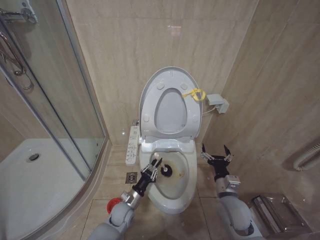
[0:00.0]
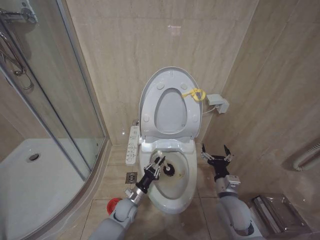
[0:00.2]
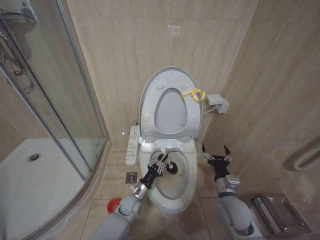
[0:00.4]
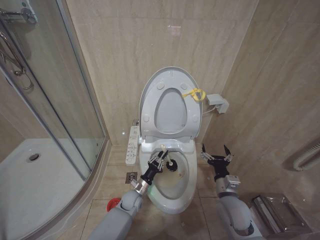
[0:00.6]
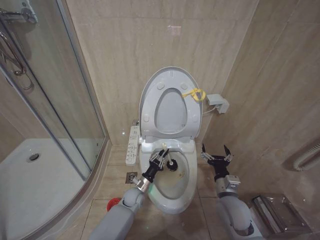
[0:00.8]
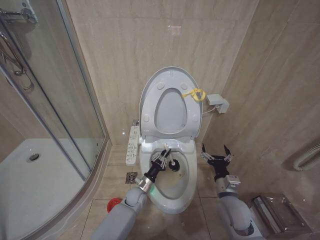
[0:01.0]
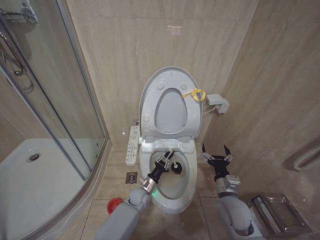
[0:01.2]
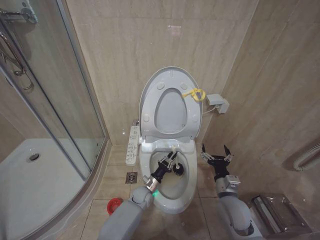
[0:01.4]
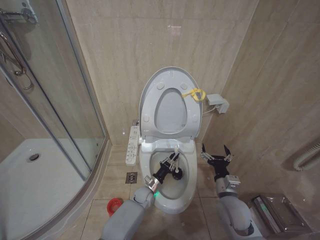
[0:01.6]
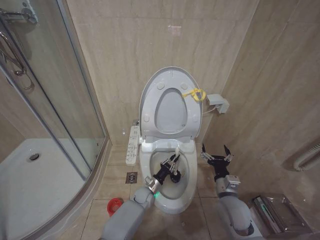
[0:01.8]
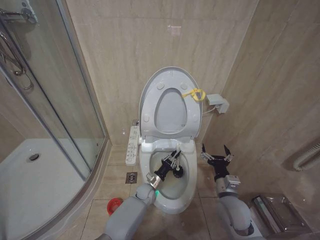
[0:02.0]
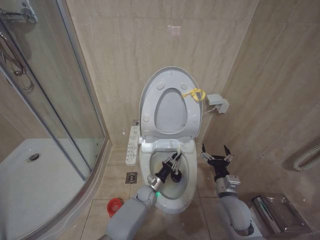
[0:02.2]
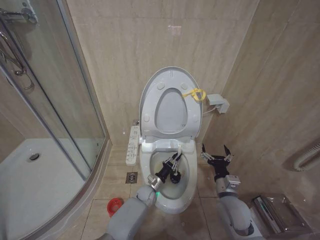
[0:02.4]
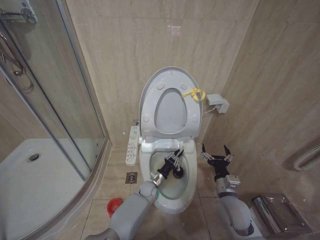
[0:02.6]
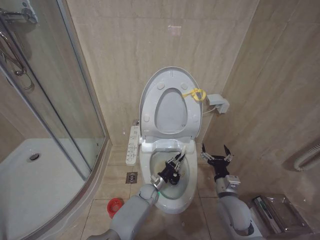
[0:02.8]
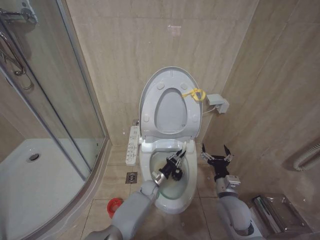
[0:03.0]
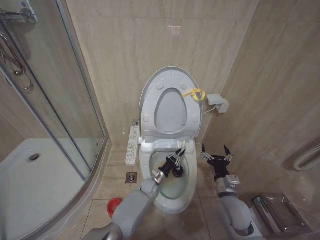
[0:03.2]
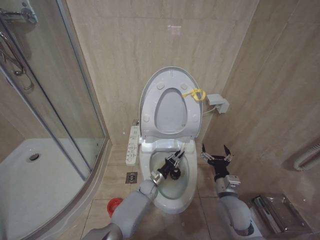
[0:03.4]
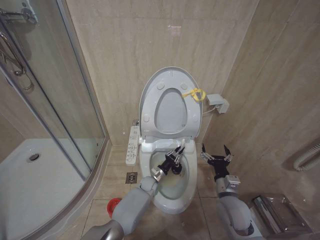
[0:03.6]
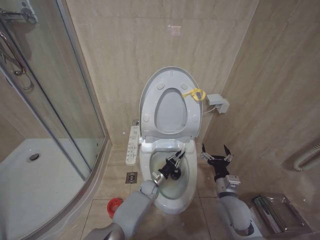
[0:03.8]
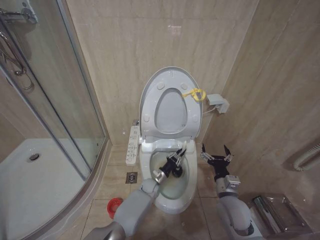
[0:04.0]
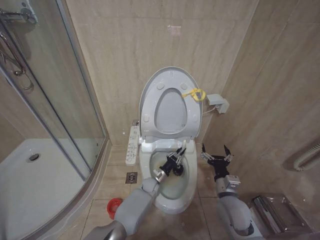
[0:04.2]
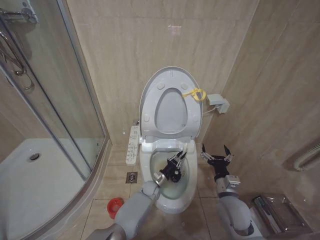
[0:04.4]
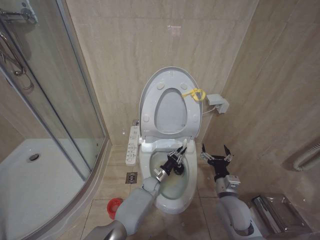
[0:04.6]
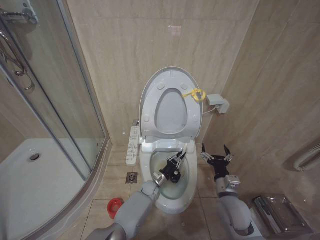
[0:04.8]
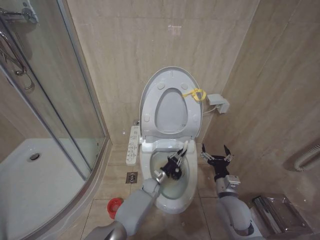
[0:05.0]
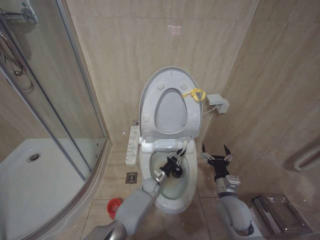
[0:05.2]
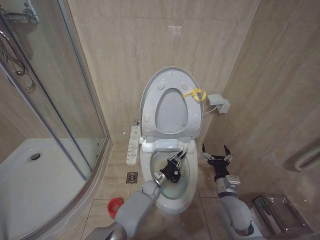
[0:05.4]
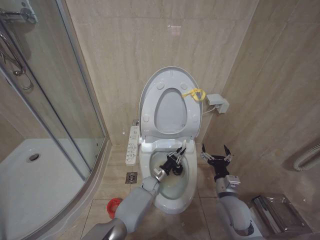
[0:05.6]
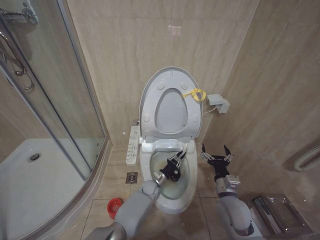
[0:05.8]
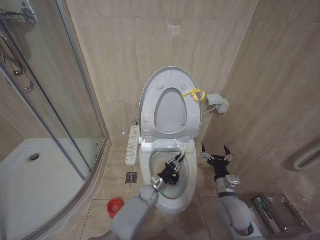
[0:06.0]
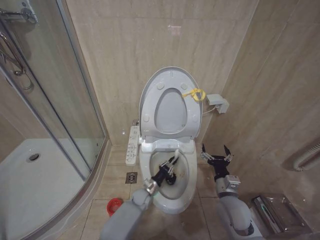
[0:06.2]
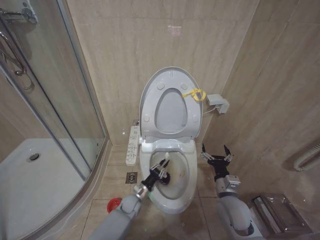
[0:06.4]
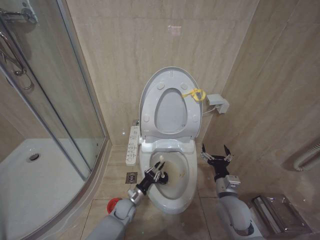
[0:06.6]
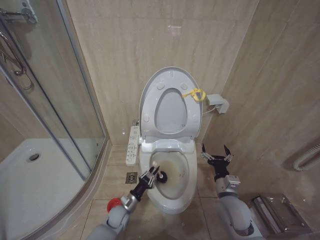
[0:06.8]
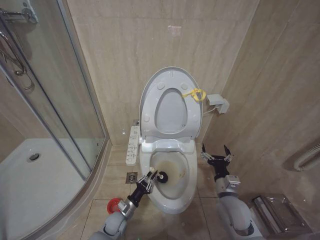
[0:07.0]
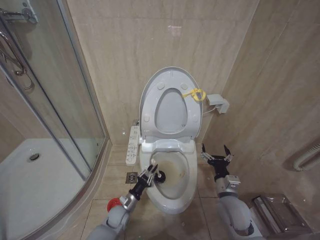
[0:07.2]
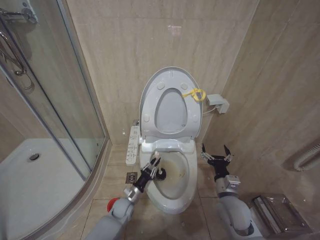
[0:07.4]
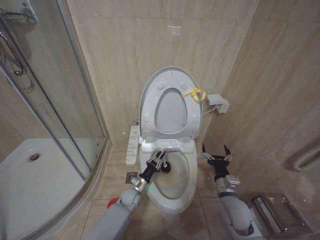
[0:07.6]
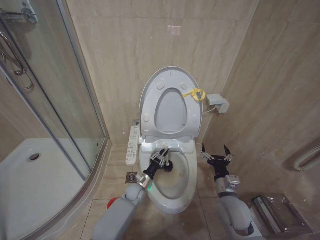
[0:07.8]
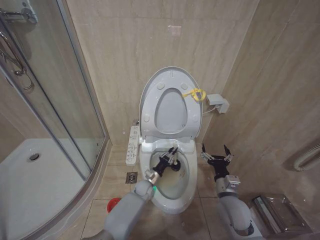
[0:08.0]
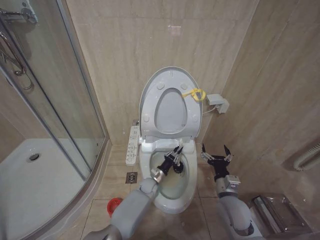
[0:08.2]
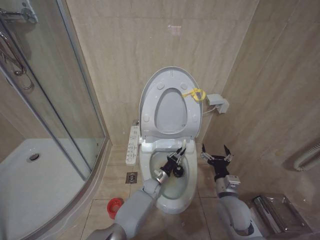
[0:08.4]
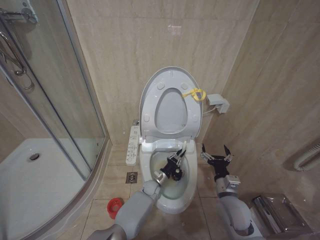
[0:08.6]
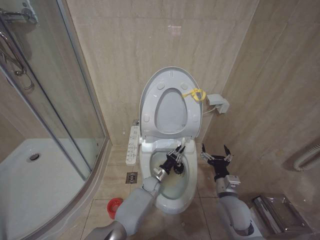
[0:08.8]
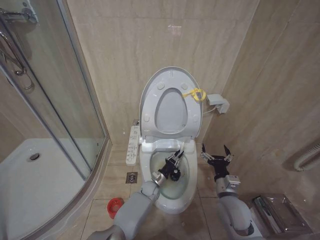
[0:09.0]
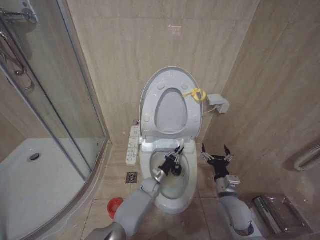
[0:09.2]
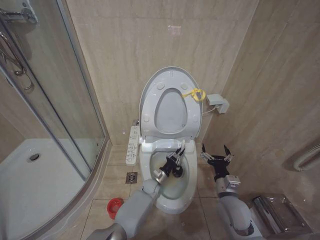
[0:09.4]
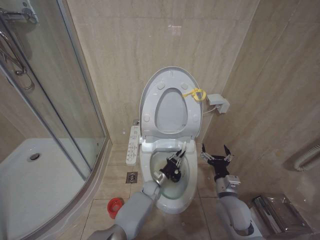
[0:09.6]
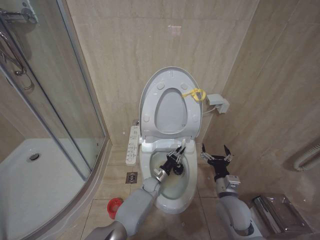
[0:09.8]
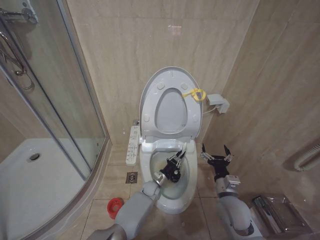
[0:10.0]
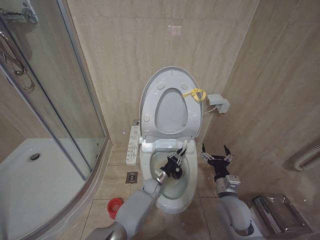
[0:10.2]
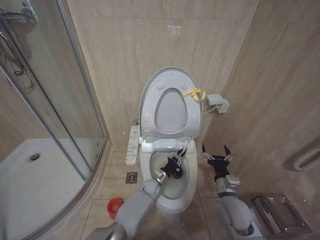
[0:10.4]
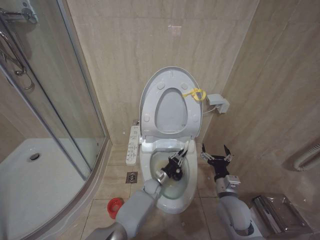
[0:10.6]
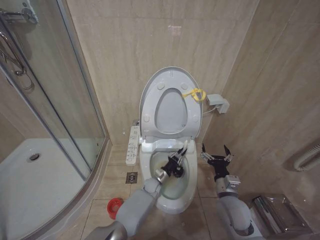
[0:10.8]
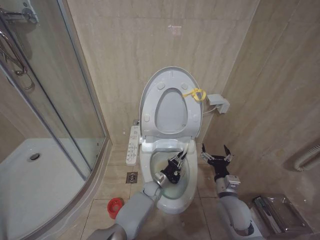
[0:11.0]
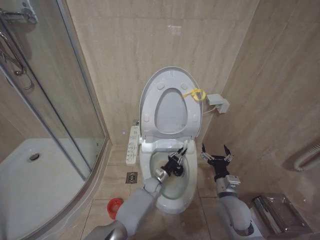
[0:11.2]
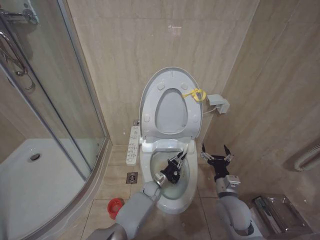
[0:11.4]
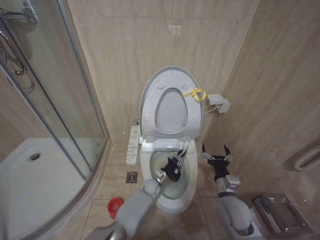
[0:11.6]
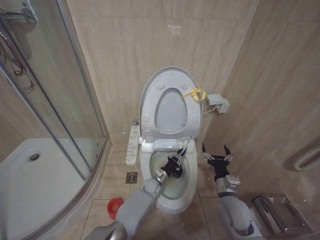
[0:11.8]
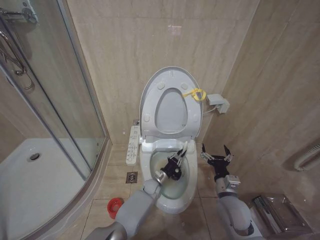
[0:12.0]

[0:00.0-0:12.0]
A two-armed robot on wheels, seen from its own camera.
Task of the whole recording: Open the toilet lid, clean the toilet bowl with a toilet brush, close the toilet lid, and flush.
0:00.0 to 0:01.6: The left gripper is displaced to the right and forward by about 15 cm.
0:01.6 to 0:03.0: The grippers stay close to where they were, moving slightly.
0:04.4 to 0:06.0: The grippers stay close to where they were, moving slightly.
0:06.0 to 0:07.6: The left gripper shifts approximately 15 cm to the left and backward.
0:07.6 to 0:09.0: The left gripper is displaced to the right and forward by approximately 15 cm.
0:09.0 to 0:10.4: Both grippers stay about where they are.

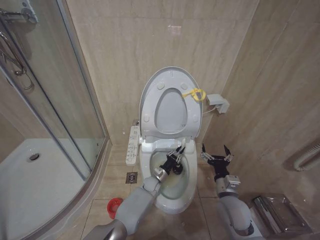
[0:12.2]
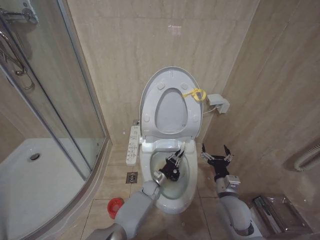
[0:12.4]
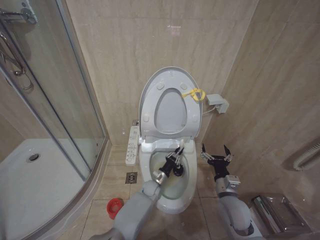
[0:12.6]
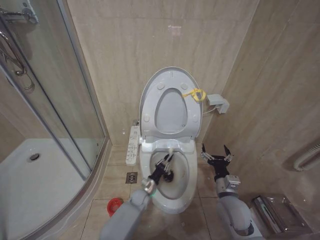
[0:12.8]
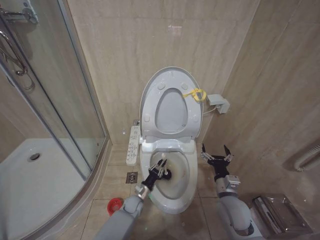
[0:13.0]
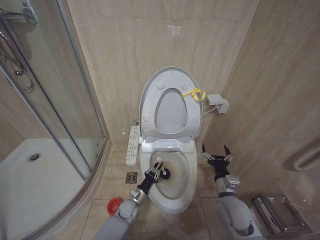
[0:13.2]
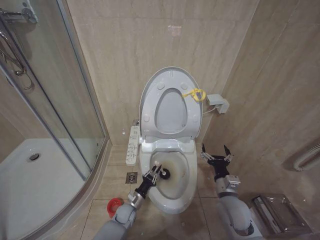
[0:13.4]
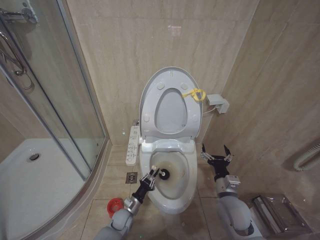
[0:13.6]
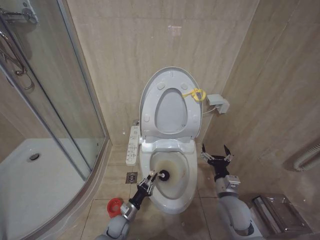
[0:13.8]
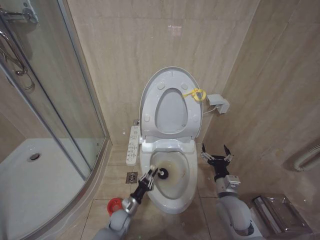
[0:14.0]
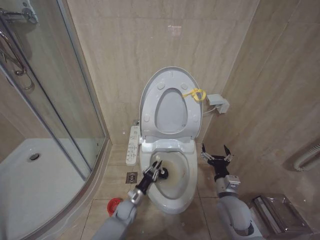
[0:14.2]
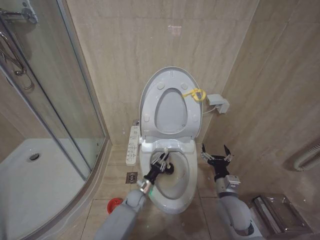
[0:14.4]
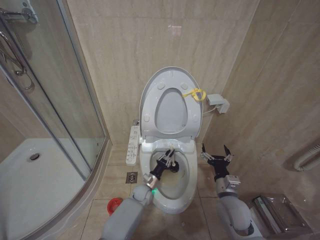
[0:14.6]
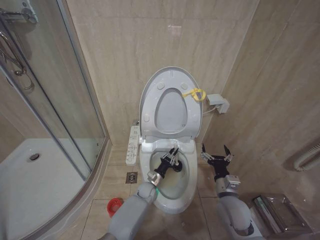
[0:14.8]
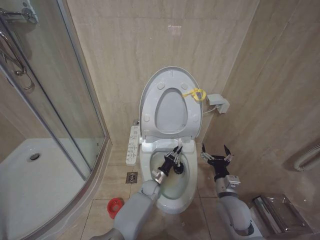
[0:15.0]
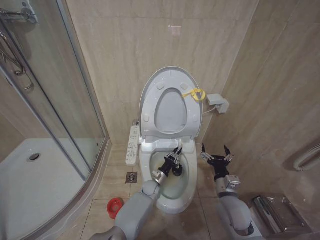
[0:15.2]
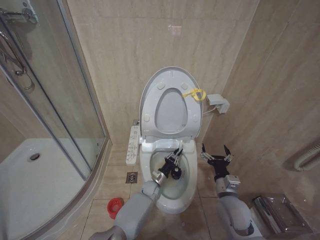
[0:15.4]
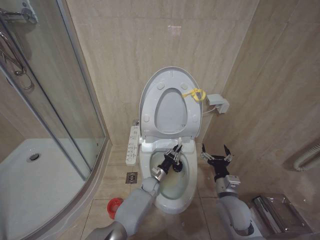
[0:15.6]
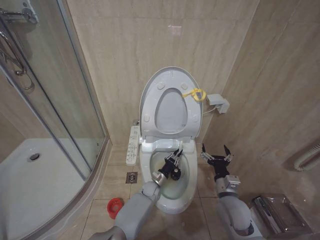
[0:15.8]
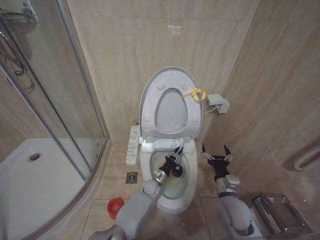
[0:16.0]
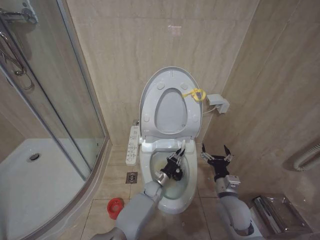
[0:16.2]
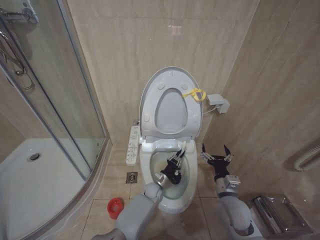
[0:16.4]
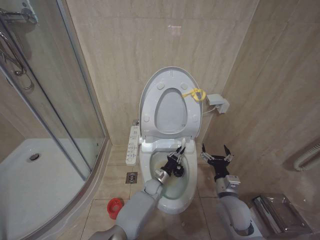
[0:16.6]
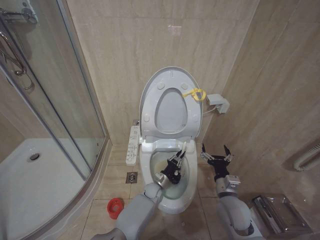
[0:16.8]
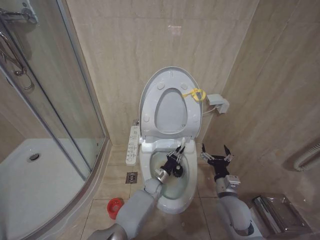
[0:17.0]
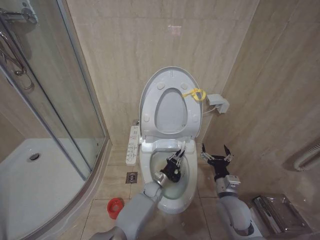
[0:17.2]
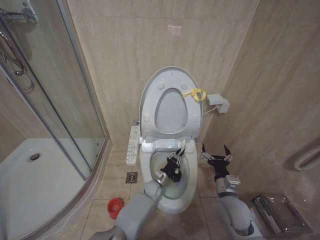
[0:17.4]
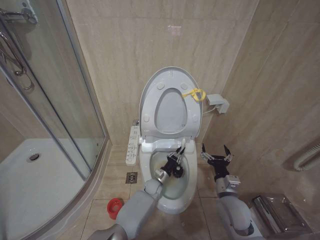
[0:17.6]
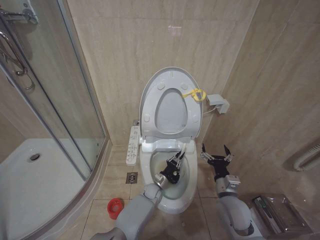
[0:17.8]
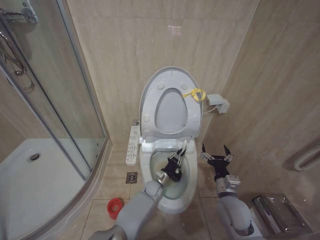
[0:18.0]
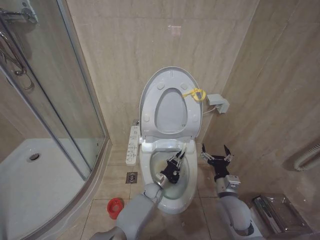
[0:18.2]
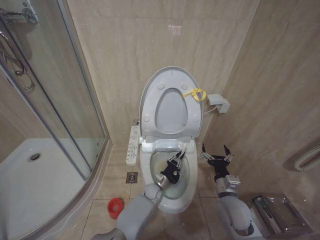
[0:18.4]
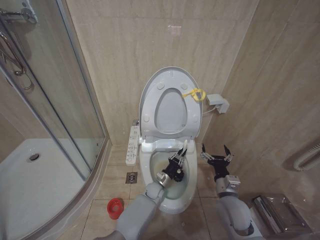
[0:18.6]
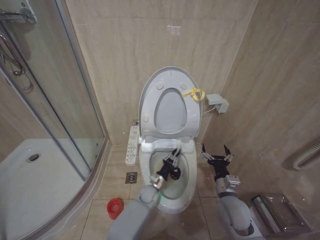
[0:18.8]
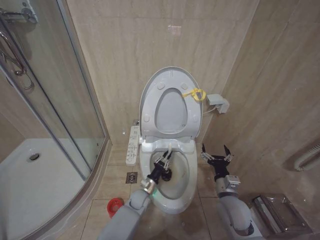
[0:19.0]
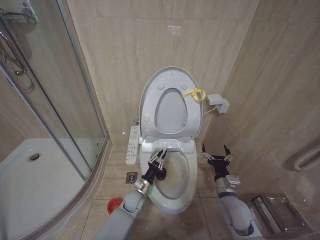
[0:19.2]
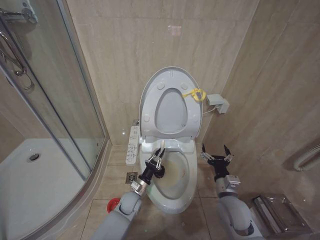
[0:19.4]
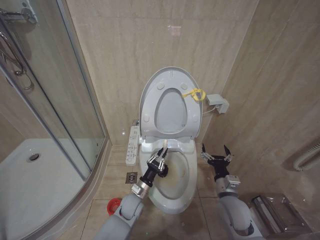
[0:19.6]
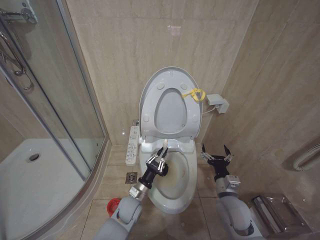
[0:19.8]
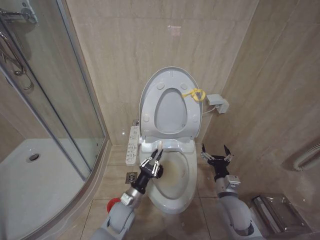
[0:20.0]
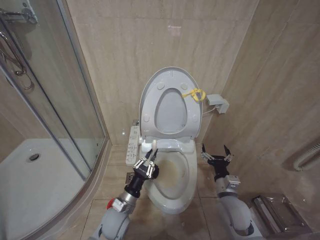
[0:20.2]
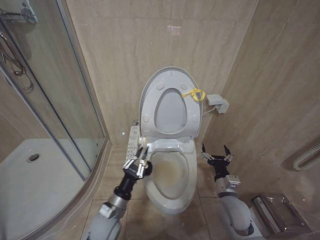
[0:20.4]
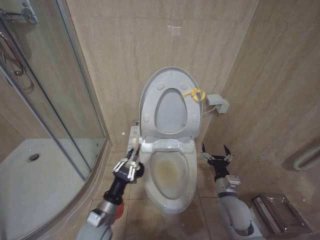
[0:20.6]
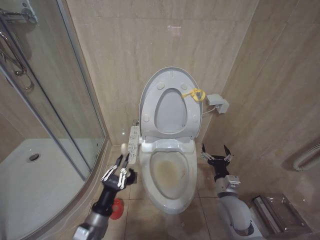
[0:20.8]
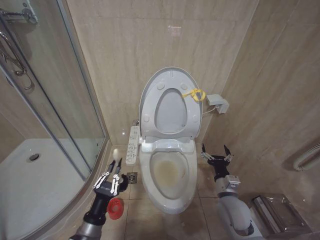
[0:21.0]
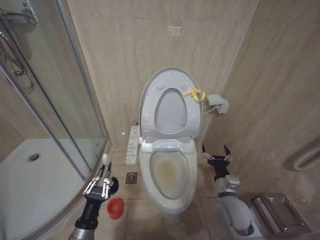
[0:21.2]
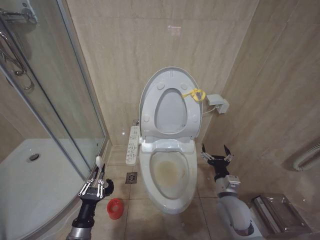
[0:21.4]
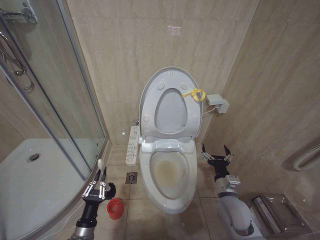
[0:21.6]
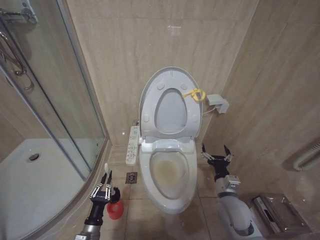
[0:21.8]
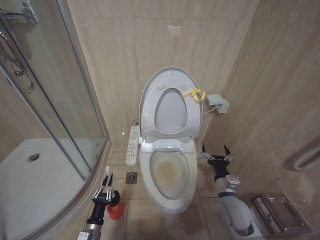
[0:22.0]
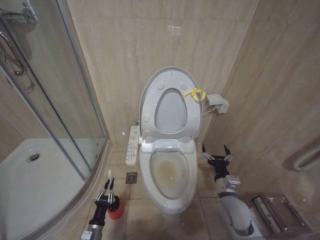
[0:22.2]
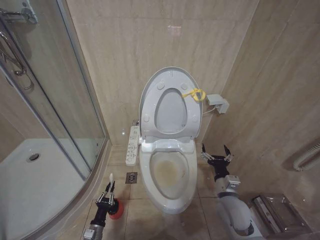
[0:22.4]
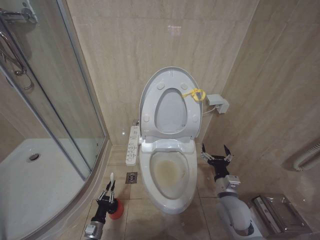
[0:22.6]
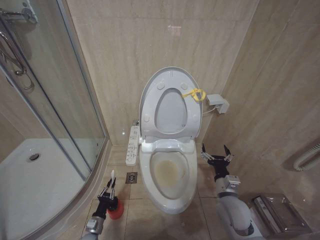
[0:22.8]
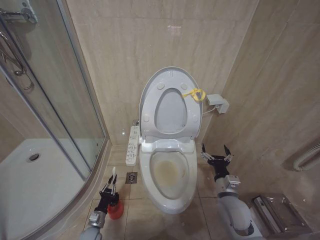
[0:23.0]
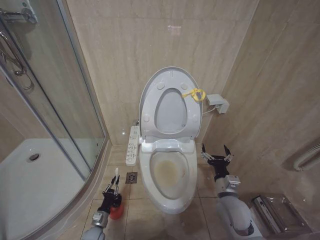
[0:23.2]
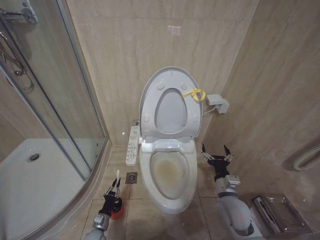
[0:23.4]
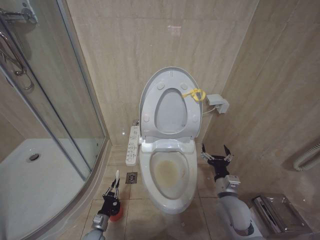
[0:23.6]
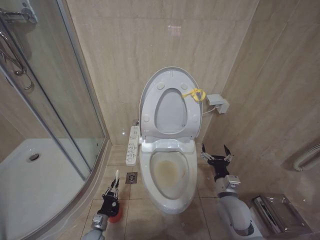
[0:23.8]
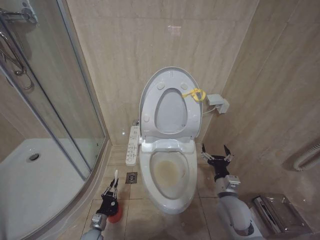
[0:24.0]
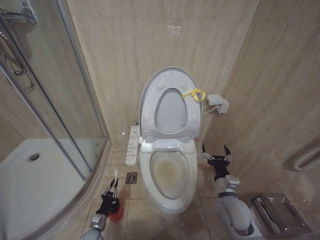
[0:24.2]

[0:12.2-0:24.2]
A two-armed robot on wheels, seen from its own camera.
Task of the whole recording: Open the toilet lid, clean the toilet bowl with a toilet brush, close the toilet lid, and flush.
0:12.2 to 0:13.8: The left gripper travels to the left and backward by roughly 20 cm.
0:13.8 to 0:15.2: The left gripper goes about 20 cm to the right and forward.
0:18.2 to 0:19.8: The left gripper shifts approximately 15 cm backward, to the left and upward.
0:19.8 to 0:21.2: The left gripper travels backward and to the left by some 20 cm.
0:21.2 to 0:22.6: The left gripper goes roughly 20 cm downward.
0:22.6 to 0:24.2: The left gripper is displaced forward by some 5 cm.
